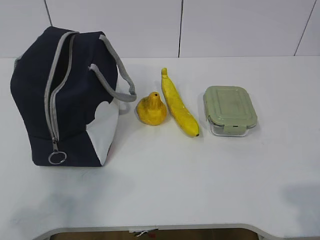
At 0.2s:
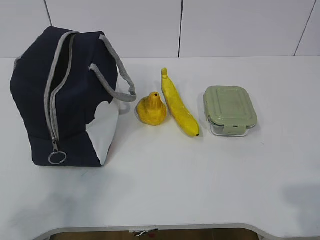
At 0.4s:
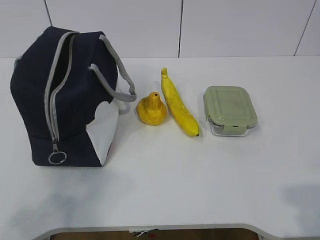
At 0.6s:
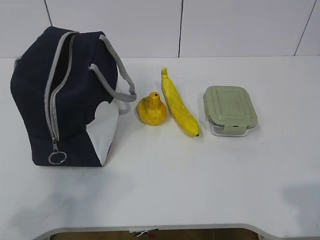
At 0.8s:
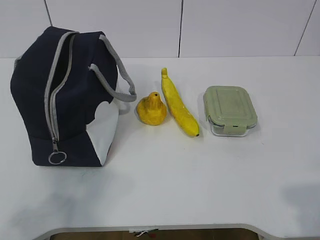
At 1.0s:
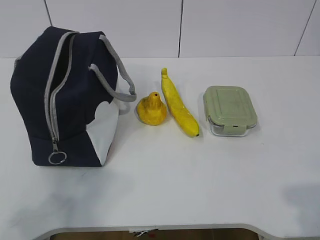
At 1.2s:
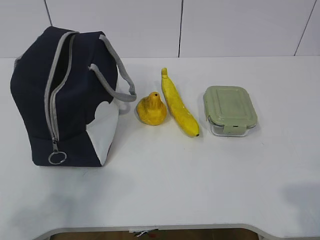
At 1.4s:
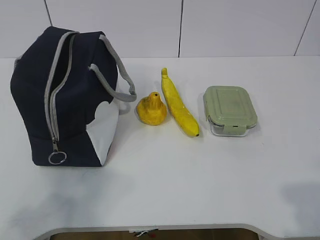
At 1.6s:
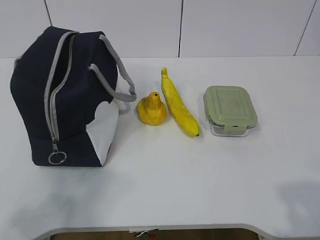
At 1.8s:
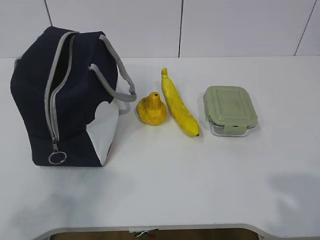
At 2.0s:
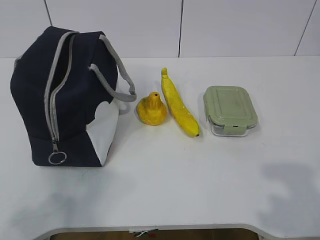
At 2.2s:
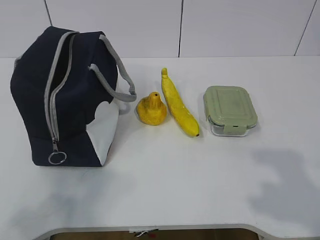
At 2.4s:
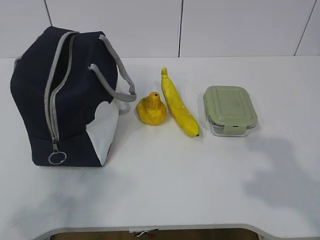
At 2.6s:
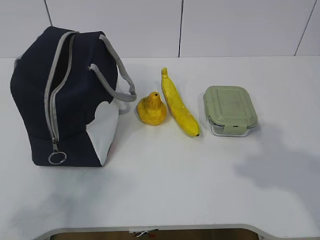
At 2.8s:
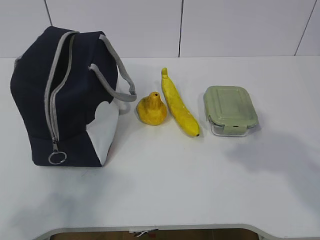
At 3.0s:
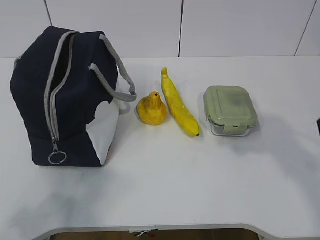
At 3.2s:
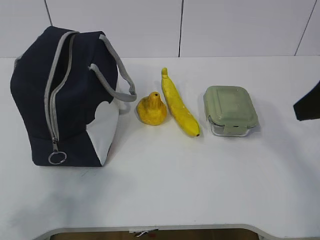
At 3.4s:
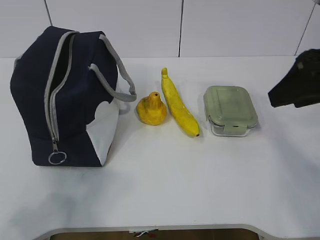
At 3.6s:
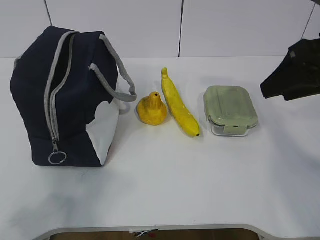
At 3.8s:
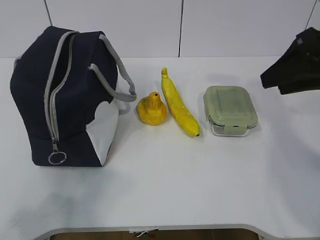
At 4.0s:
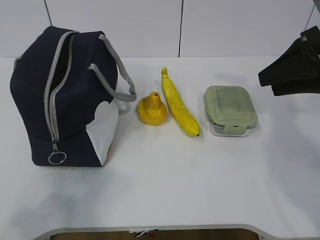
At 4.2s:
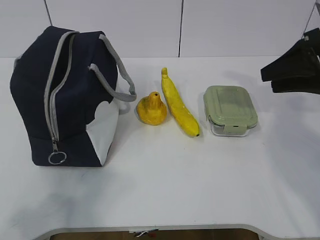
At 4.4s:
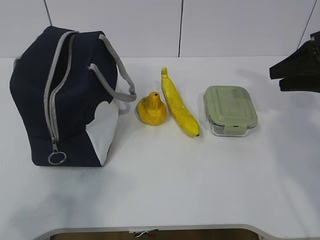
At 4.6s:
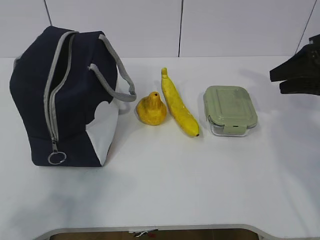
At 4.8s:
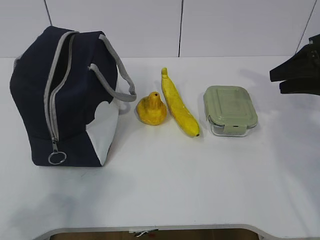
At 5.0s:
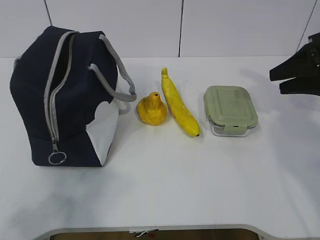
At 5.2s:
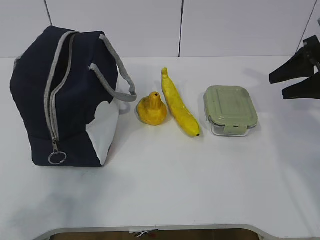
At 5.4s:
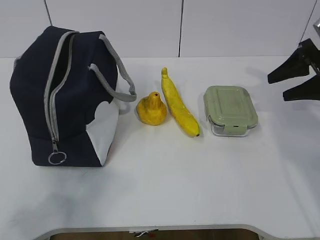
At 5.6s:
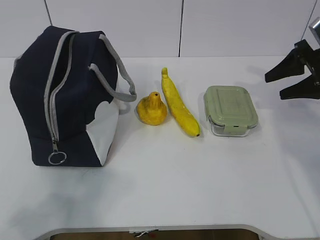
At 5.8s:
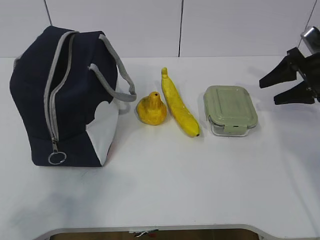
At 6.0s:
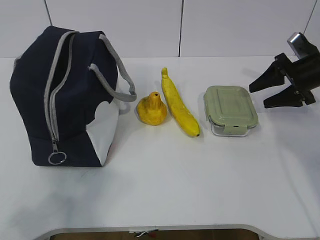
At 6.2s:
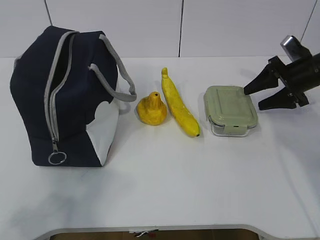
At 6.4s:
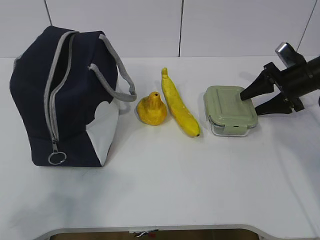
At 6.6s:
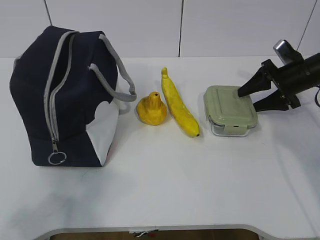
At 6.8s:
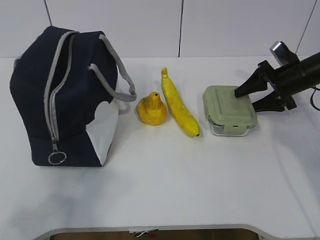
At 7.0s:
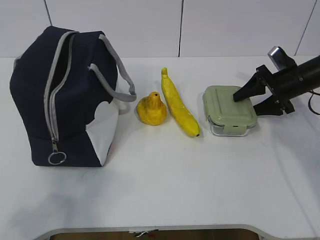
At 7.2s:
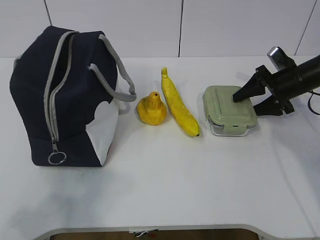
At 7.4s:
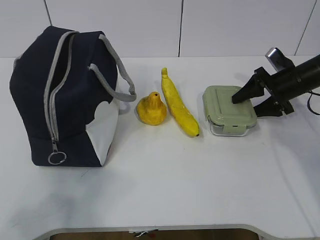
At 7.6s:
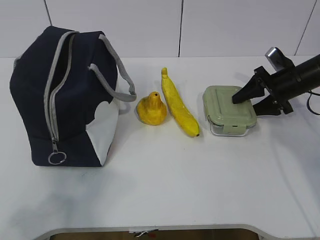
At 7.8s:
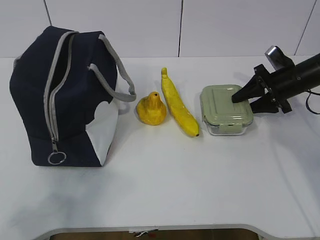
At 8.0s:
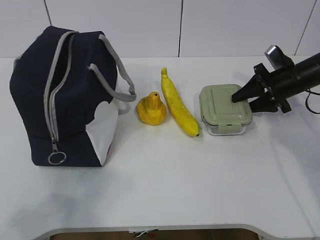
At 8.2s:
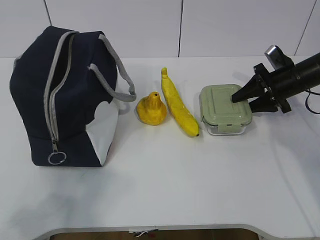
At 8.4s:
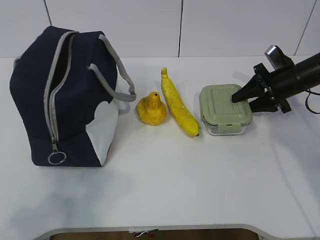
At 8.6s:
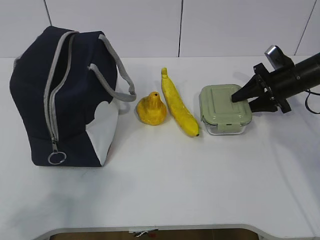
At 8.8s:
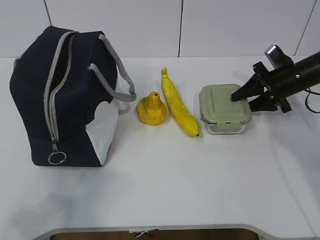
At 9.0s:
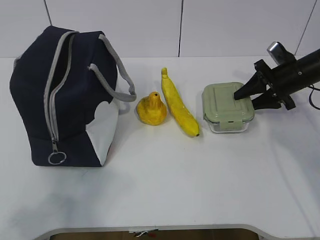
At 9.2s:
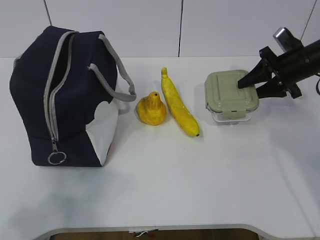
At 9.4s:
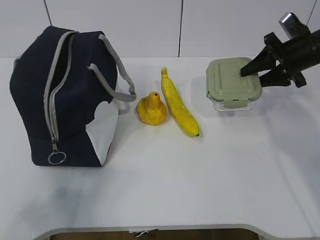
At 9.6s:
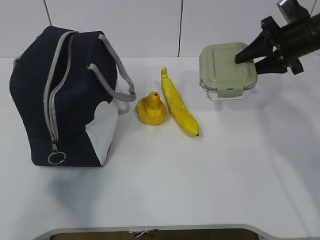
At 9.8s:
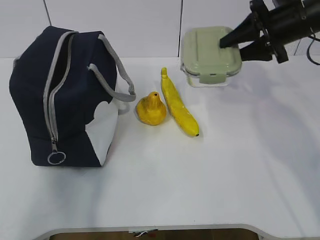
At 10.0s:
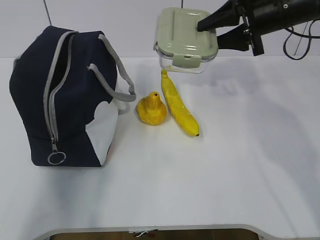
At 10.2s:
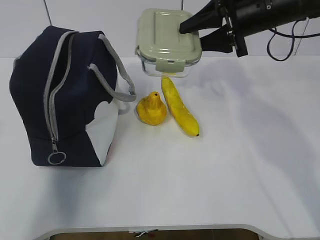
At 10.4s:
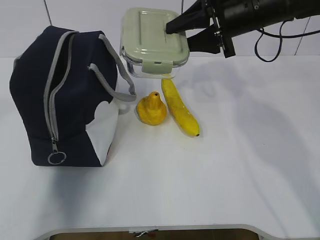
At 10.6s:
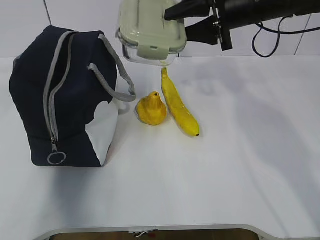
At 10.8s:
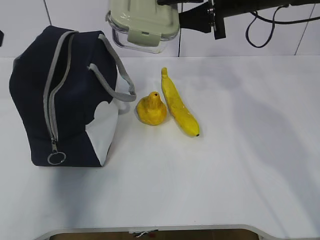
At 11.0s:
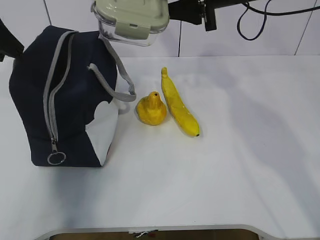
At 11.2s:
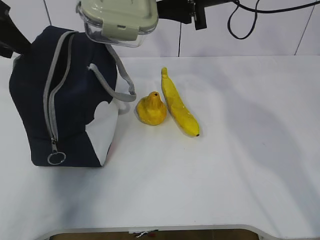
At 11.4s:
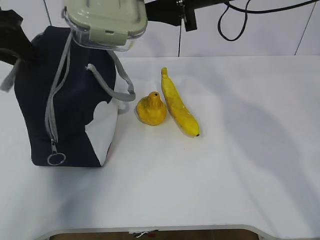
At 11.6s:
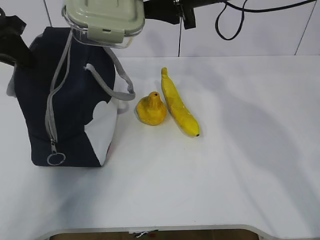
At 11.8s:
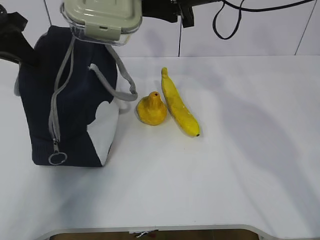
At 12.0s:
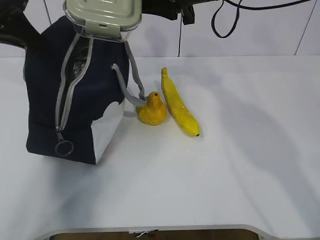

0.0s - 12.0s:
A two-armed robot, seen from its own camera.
Step, 0.0s - 7.2s: Grab the lunch box with your right hand.
Step, 7.4s - 10.2s: Grab the lunch bag with your left hand.
1.6s - 3.0s: The right gripper heads forward, covering roughly 20 cm.
3.0s - 4.4s: The right gripper moves forward, to the right and downward, about 20 cm.
4.4s - 6.0s: The right gripper heads forward and downward, covering approximately 10 cm.
6.0s - 9.0s: The grippers make only small movements.
9.0s - 10.4s: The left gripper shifts approximately 20 cm forward and upward. The right gripper heads to the left and upward, covering about 20 cm.
10.4s - 12.0s: The left gripper goes some 15 cm forward, and closes. The right gripper moves to the left, some 5 cm.

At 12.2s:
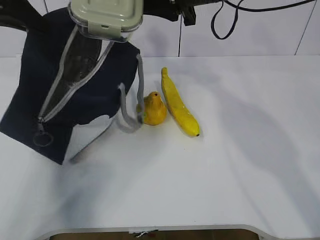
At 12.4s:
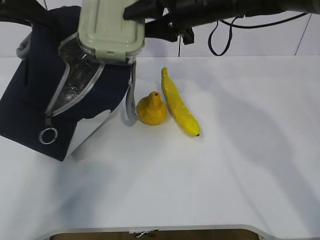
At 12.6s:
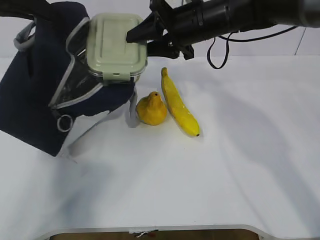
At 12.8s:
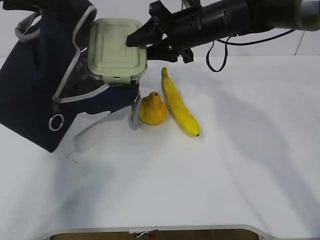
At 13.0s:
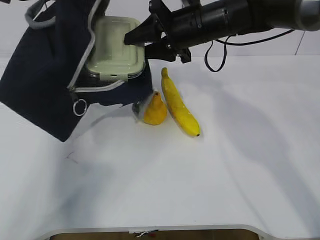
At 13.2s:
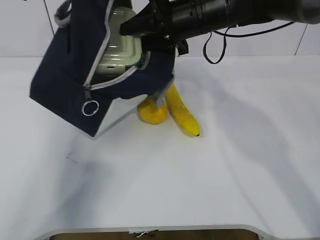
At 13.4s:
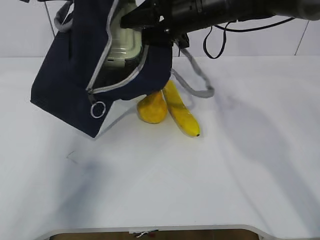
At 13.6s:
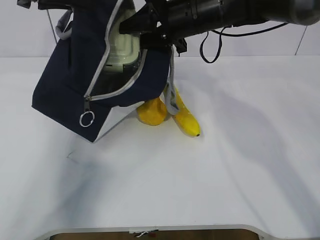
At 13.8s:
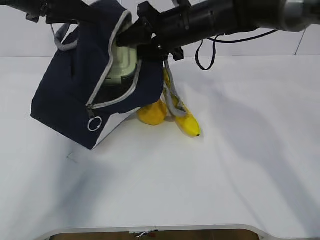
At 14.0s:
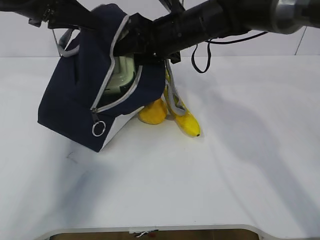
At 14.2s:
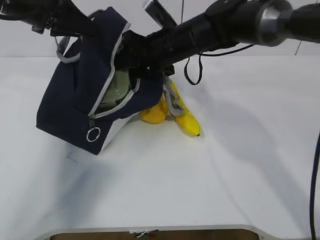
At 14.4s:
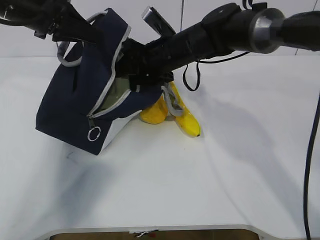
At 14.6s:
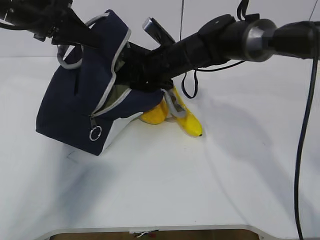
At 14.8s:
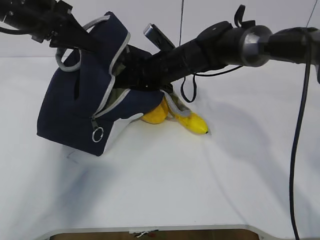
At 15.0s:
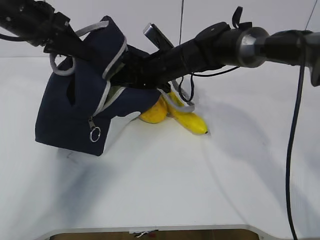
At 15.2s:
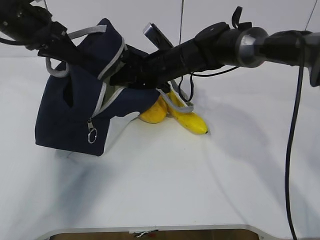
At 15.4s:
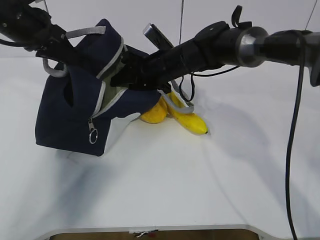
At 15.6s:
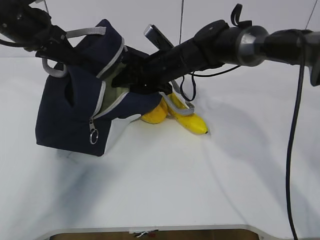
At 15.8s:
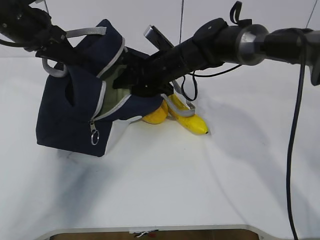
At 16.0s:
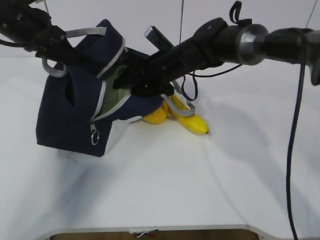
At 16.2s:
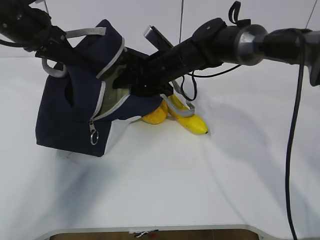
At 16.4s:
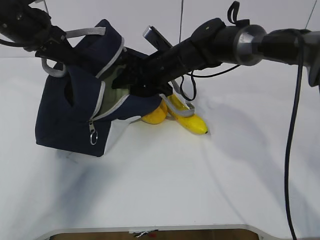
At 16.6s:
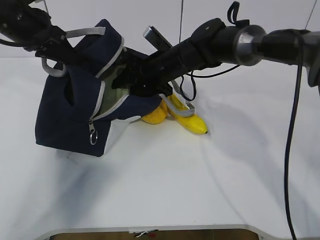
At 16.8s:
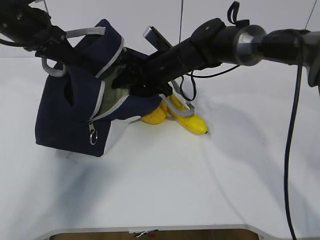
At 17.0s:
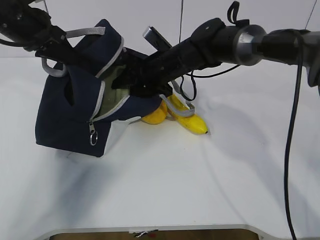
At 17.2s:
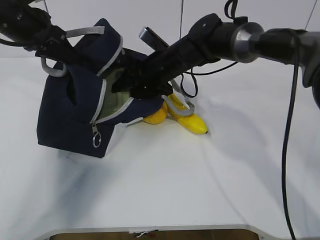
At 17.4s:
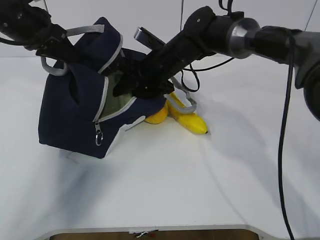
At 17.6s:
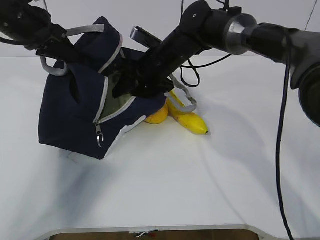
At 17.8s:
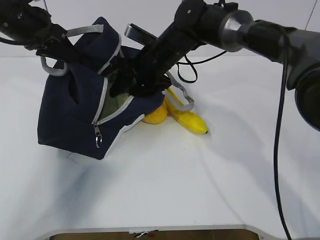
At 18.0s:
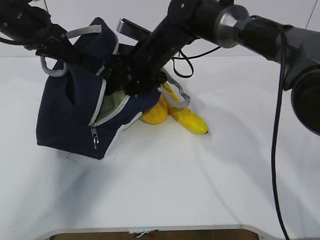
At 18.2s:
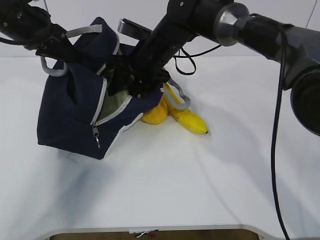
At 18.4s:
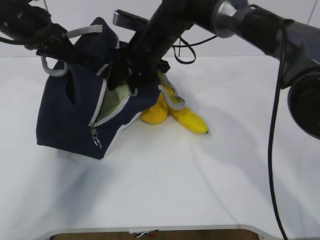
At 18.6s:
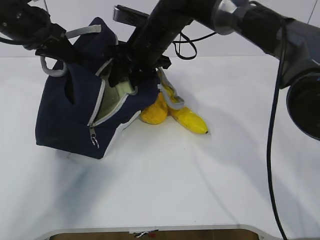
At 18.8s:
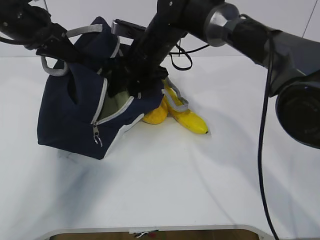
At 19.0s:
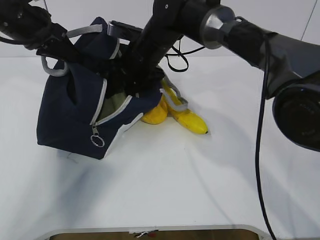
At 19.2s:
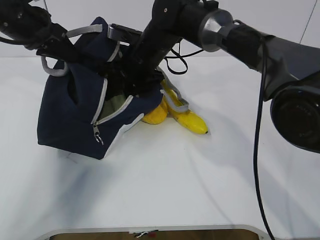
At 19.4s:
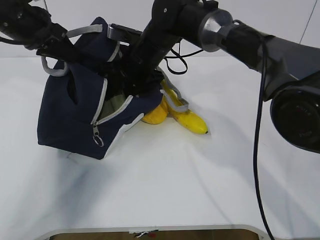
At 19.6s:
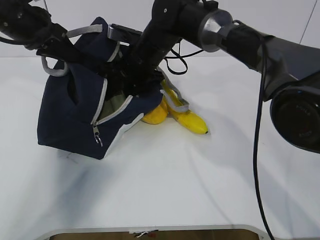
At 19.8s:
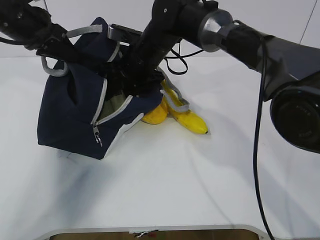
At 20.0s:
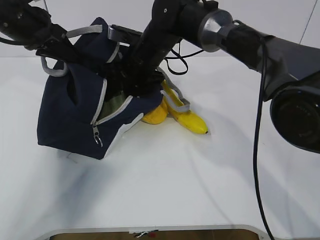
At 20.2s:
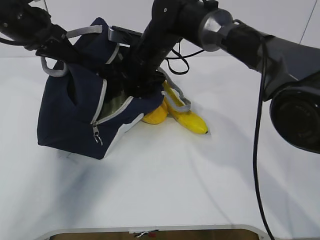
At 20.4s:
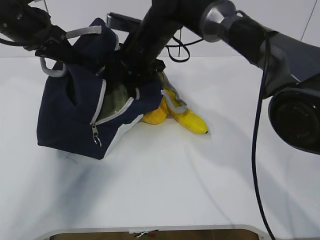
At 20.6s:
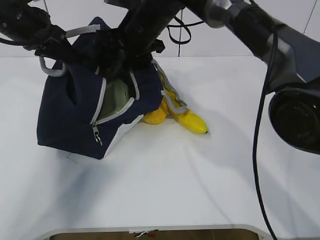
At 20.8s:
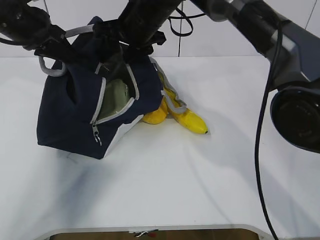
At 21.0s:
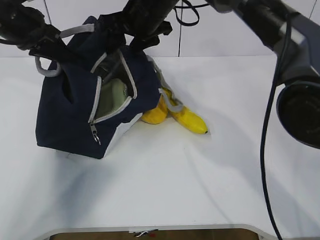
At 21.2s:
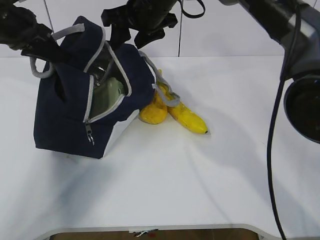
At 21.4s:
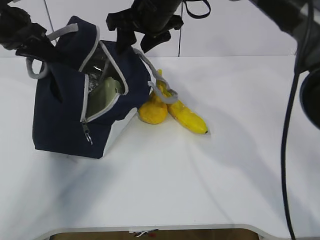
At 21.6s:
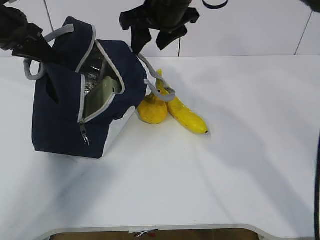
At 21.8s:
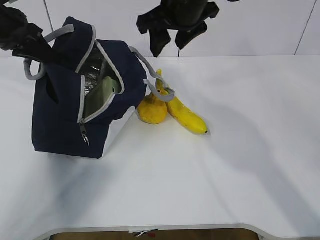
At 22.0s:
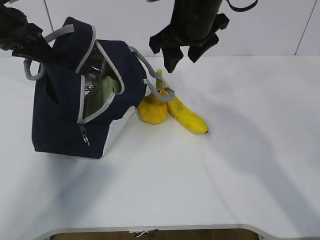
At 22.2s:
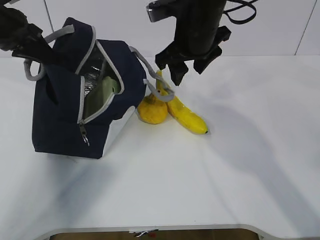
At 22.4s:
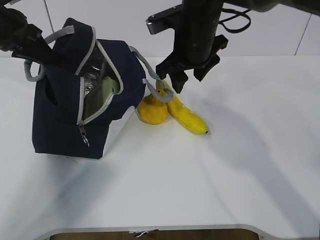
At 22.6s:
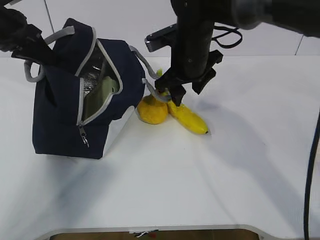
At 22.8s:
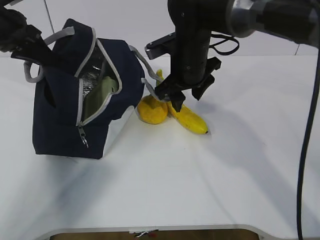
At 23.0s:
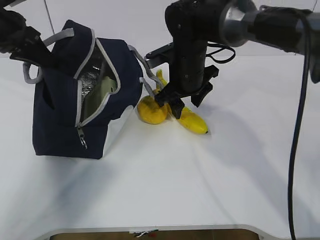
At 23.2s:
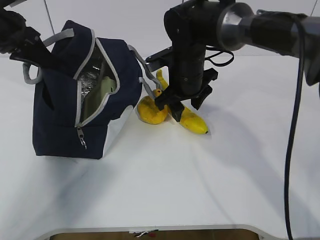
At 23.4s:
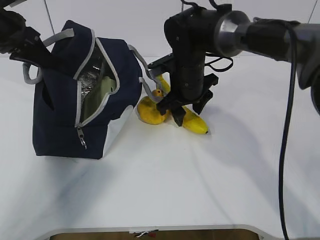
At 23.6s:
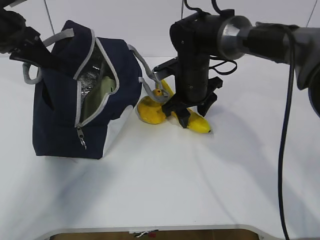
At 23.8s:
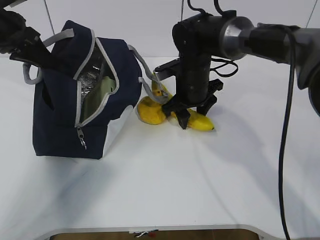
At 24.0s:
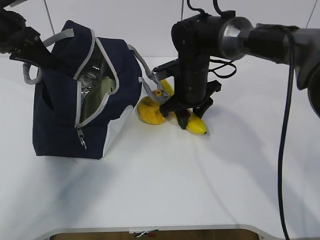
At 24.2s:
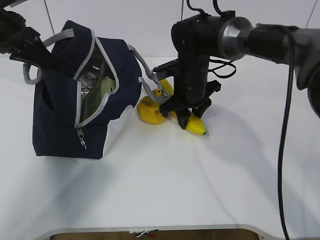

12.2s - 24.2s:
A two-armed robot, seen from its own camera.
Step, 12.2s - 16.8s: Place it into the bag with your right hand.
Step, 17.0s - 20.2s: Grab the banana with your right hand.
Step, 20.4s - 22.0s: Place it into the bag with your right hand.
12.2s - 13.8s: The left gripper changes place by about 5 cm. The right gripper goes some 5 cm downward.
13.8s - 15.2s: The right gripper moves downward, some 10 cm. Meanwhile the left gripper ends up roughly 5 cm from where it was.
15.2s - 16.6s: The grippers move only a little.
16.6s - 18.2s: The right gripper moves approximately 5 cm.
18.2s - 19.8s: The grippers make only small movements.
19.8s - 21.2s: The right gripper moves upward, about 10 cm.
21.2s - 22.6s: The right gripper heads downward and to the right, covering roughly 10 cm.
22.6s - 24.2s: The right gripper travels downward by approximately 5 cm.
